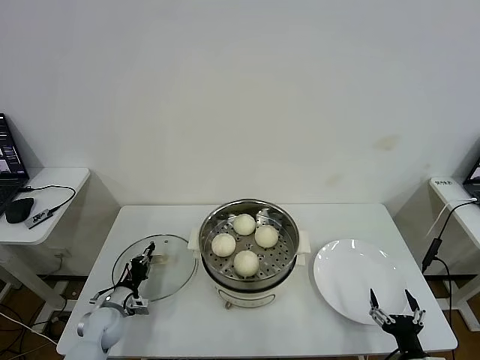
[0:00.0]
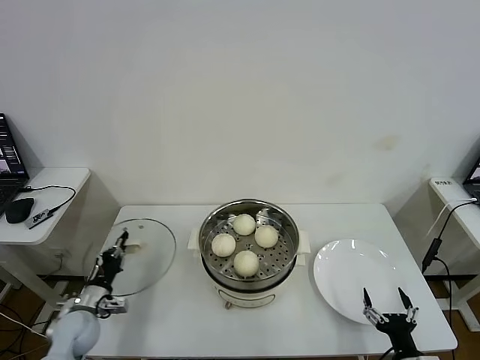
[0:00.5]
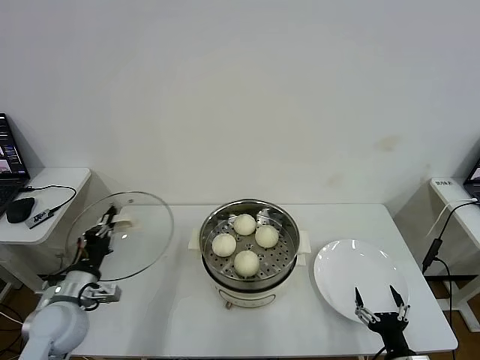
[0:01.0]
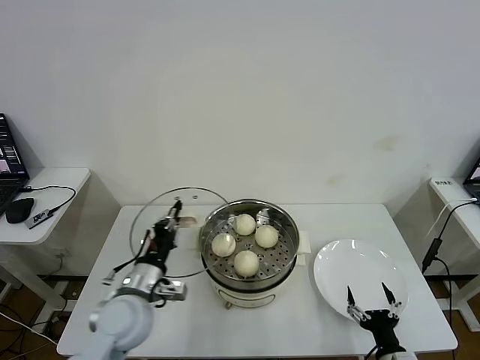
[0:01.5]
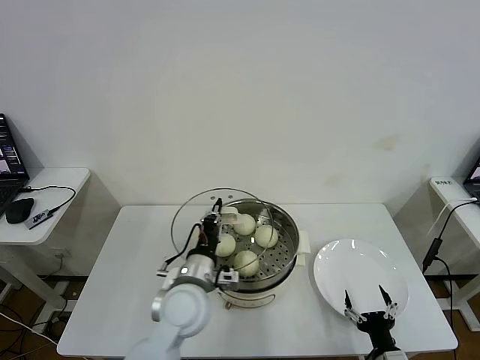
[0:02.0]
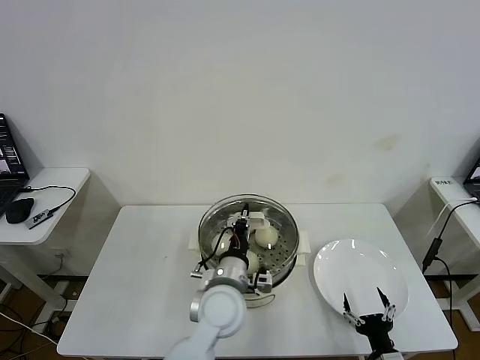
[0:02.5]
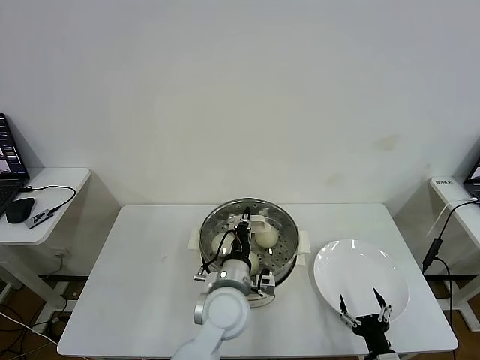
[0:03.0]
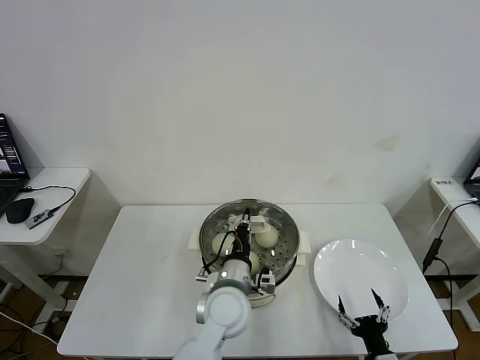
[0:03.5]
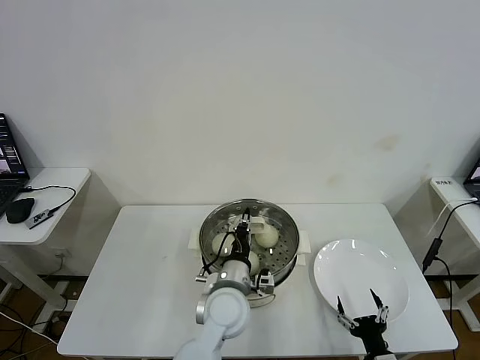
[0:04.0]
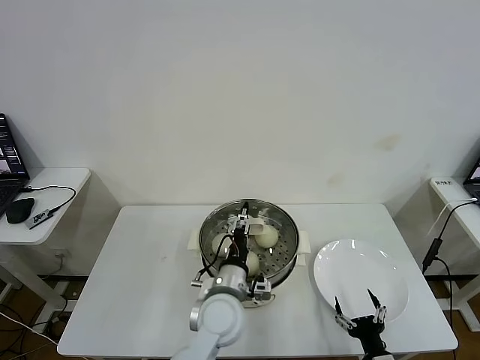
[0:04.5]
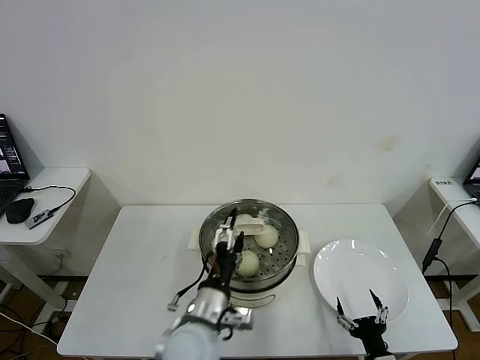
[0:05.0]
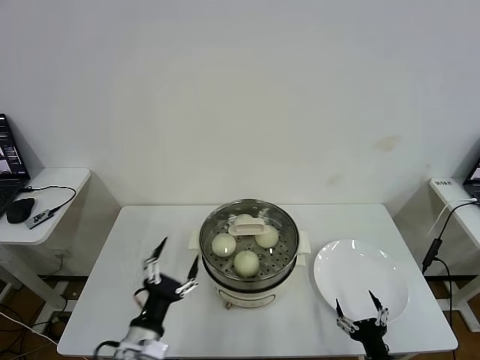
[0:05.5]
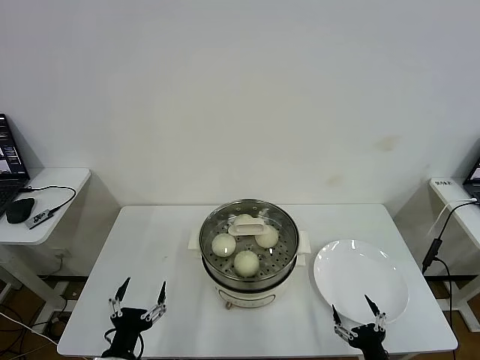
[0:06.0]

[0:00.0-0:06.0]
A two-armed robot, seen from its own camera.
Task of the whole recording: take steamed baozi put them in steamer then cover it.
Step, 0:00.5 to 0:04.0: Place the pot lid on the steamer with left gripper.
0:00.0 to 0:02.0: The left gripper moves to the right and upward, roughly 30 cm.
0:02.0 to 0:04.0: The left gripper is displaced to the right by roughly 10 cm.
0:04.0 to 0:06.0: The left gripper heads to the left and backward, covering approximately 30 cm, and opens its fingers.
